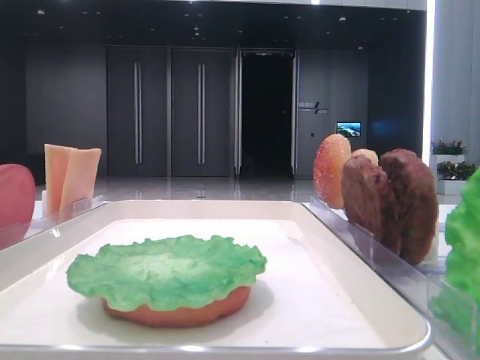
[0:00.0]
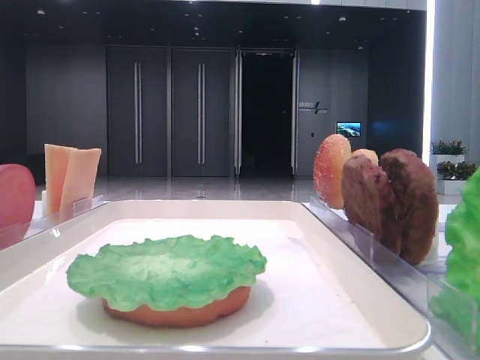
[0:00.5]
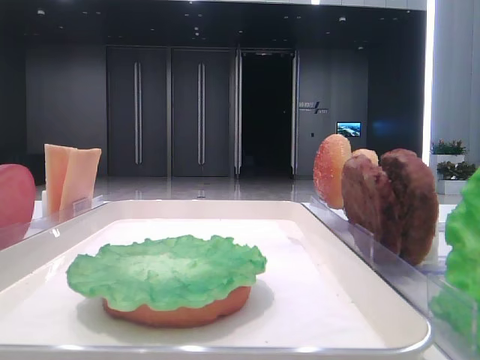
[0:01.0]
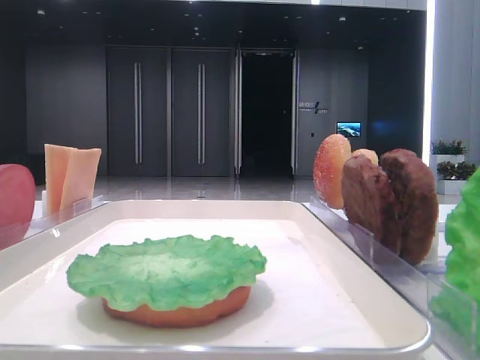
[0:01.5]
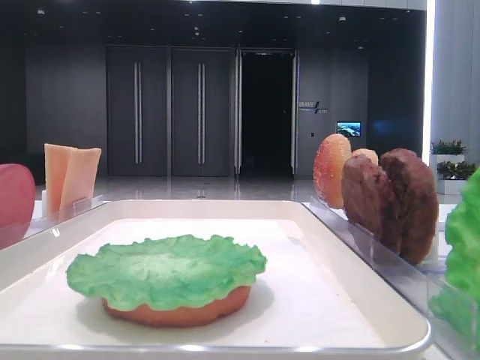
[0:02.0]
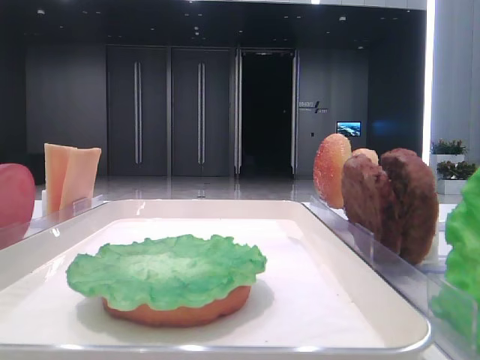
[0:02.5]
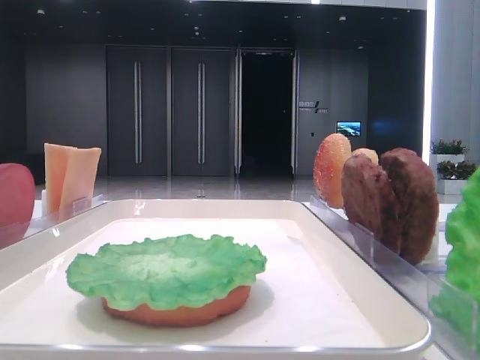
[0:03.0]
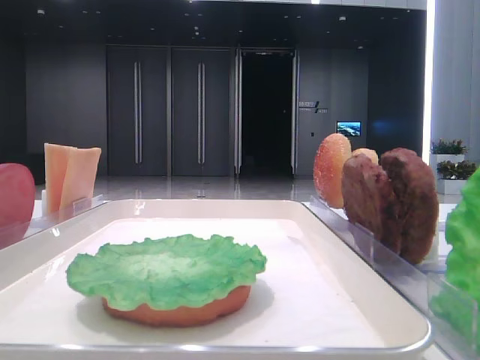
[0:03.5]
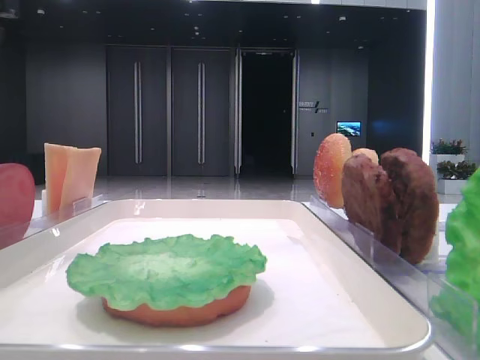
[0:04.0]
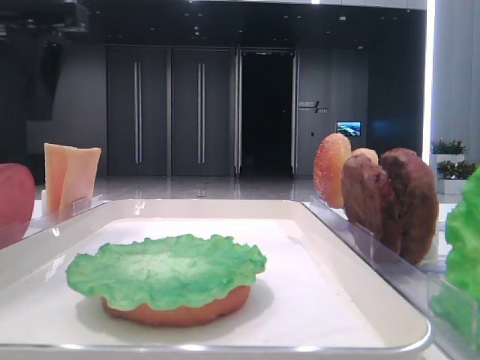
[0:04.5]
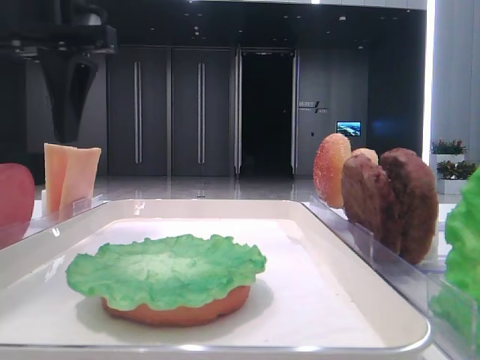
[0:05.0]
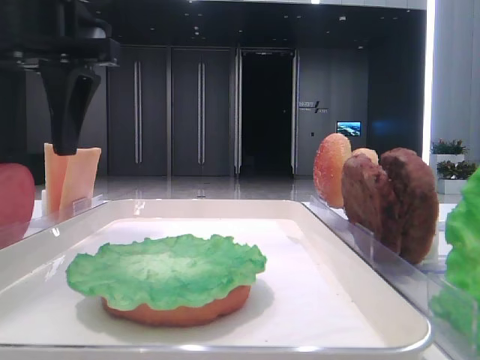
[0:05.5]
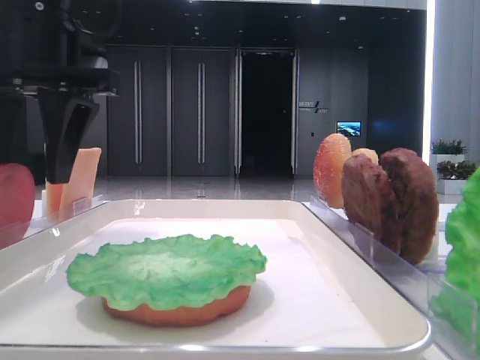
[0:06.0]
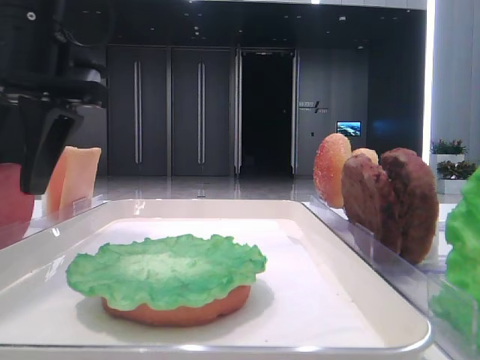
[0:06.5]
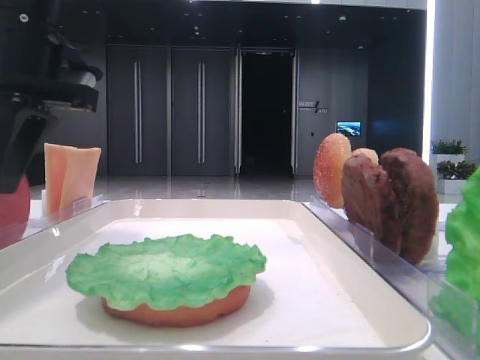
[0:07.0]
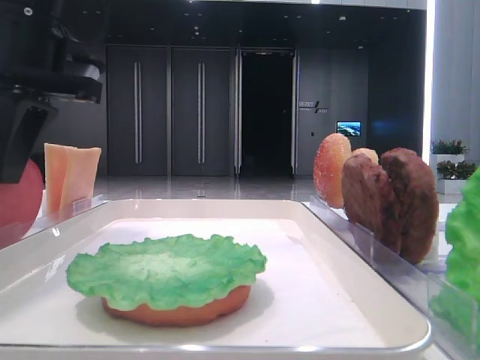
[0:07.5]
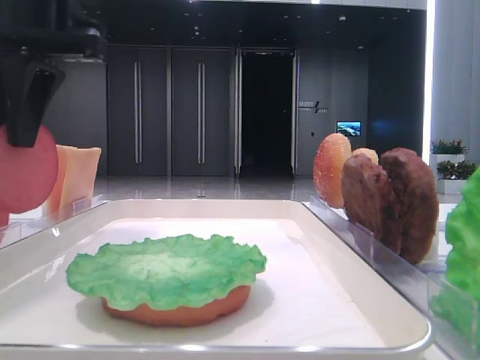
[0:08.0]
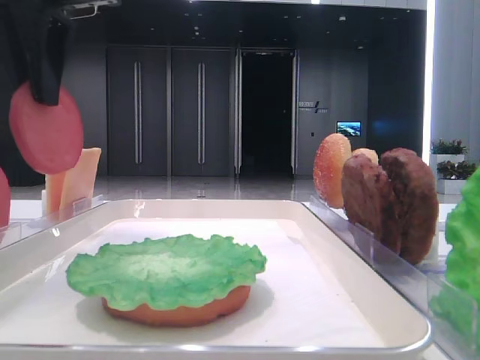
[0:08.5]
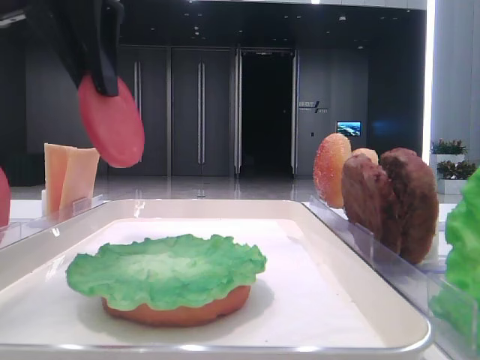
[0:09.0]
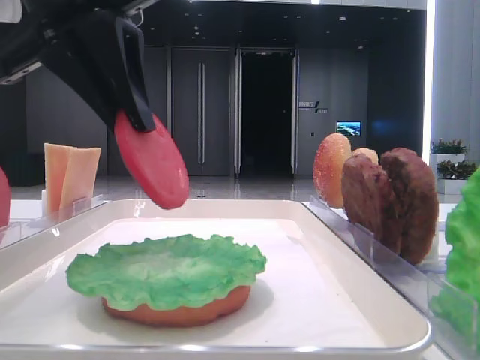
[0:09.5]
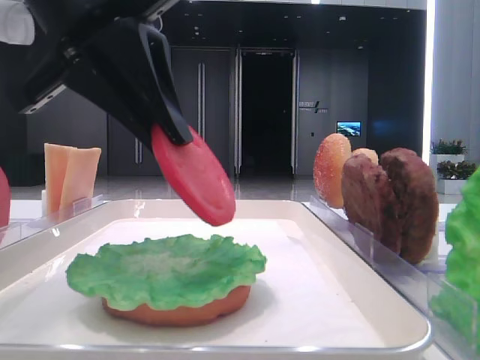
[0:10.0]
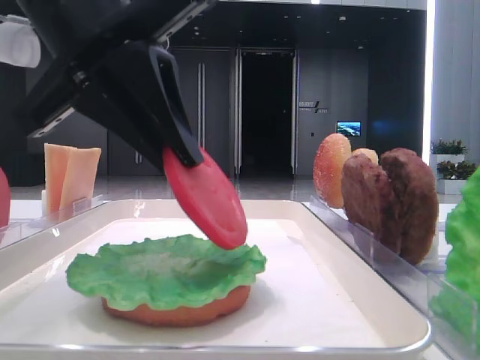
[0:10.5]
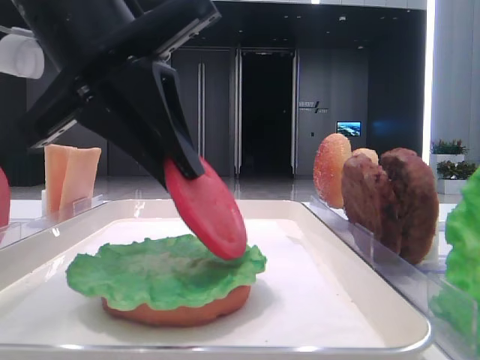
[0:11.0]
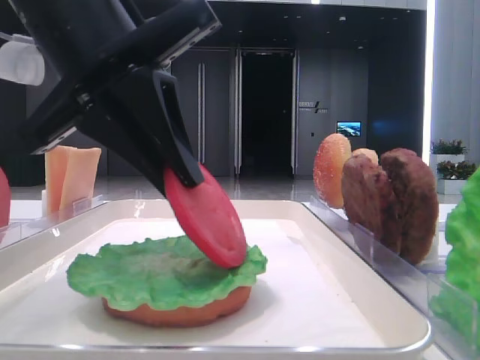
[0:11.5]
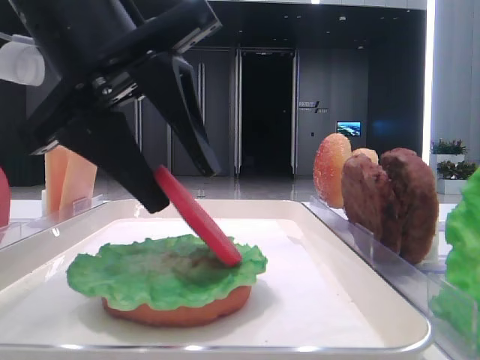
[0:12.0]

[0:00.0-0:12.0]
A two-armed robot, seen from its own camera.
Step, 0:00.0 to 0:07.0: Pick up the tomato slice with the left hand.
0:04.0 to 0:06.0: The left gripper goes about 10 cm to the right and downward.
0:06.0 to 0:08.0: The left gripper closes.
0:08.0 to 0:10.0: The left gripper is displaced backward and to the right by approximately 10 cm.
0:10.0 to 0:12.0: The left gripper opens up.

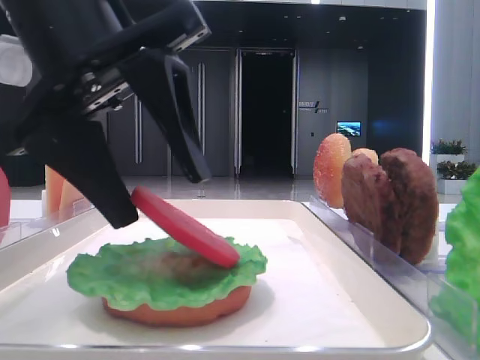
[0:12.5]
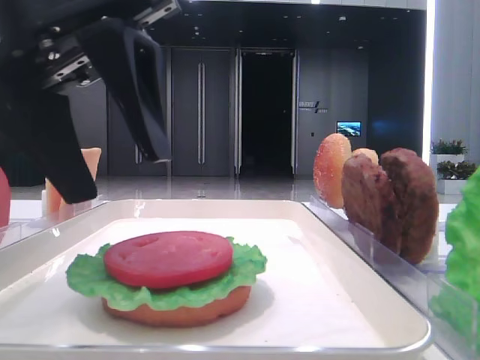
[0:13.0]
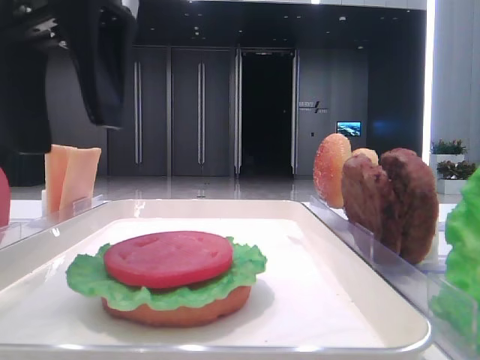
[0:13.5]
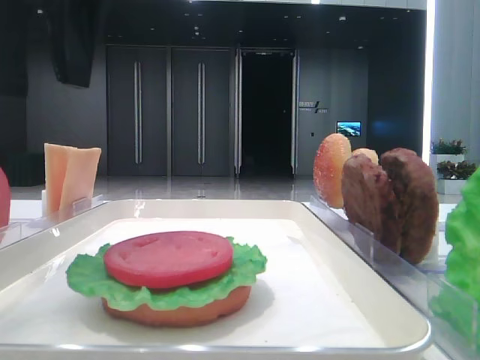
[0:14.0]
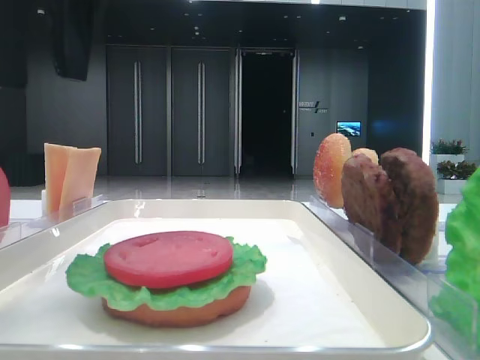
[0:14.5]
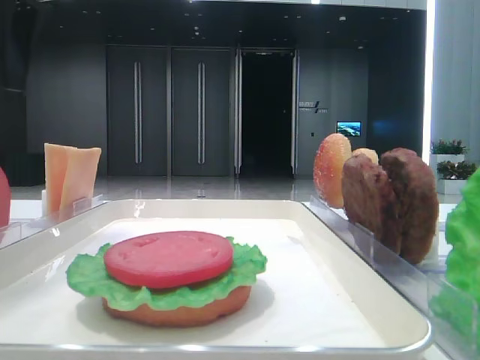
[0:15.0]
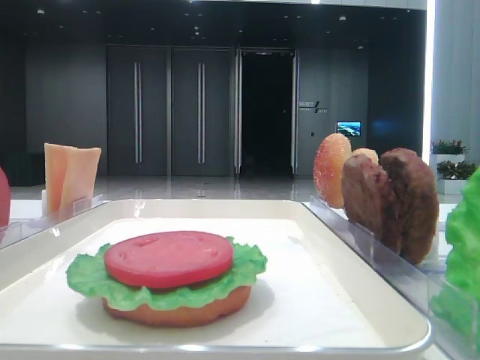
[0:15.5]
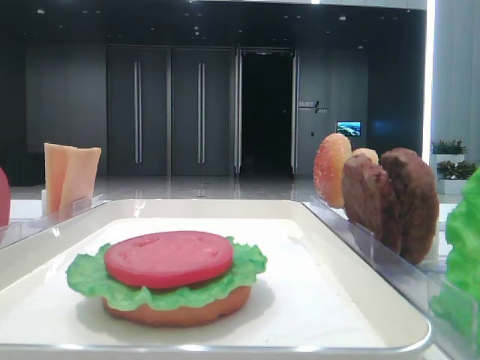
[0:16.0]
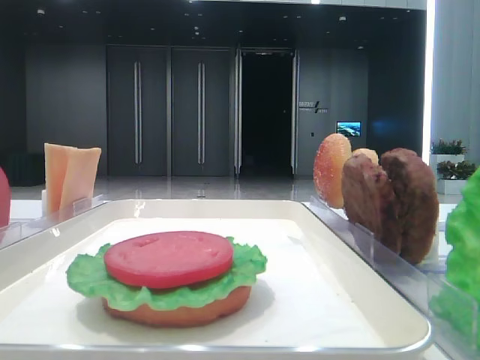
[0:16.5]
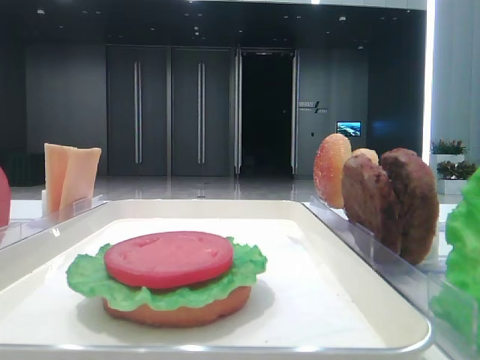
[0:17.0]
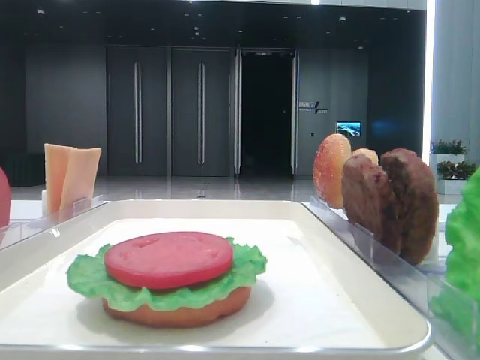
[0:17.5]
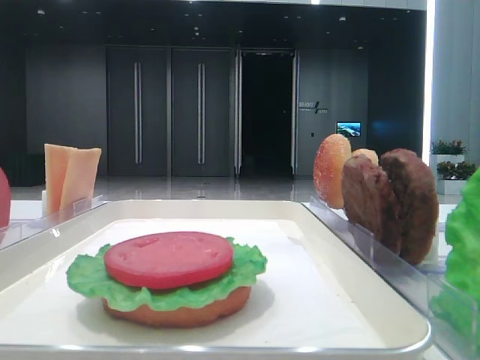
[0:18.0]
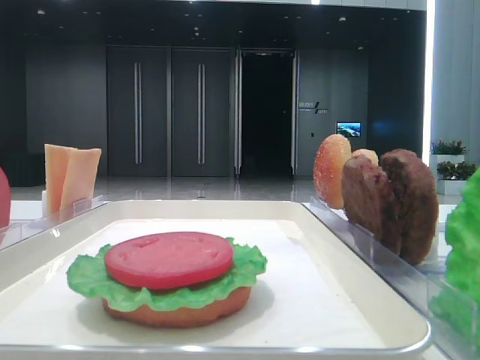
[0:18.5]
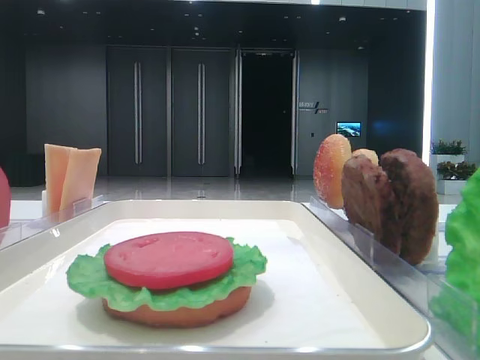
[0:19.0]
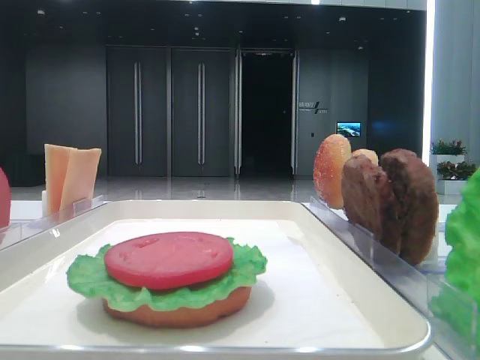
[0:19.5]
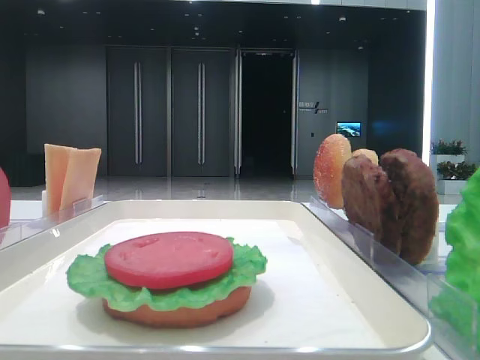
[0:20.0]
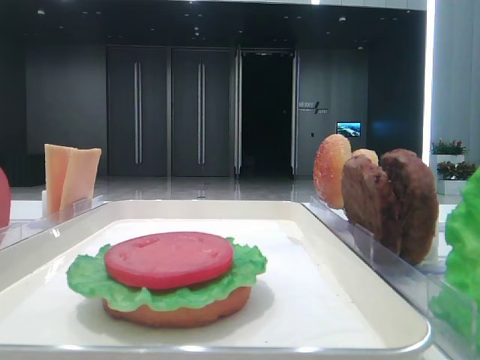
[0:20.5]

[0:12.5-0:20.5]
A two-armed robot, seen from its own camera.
0:12.5 to 0:14.5: The left gripper goes some 10 cm upward.
0:14.5 to 0:16.5: The left gripper heads to the left, covering approximately 15 cm.
0:16.5 to 0:18.5: The left gripper shifts some 30 cm backward.

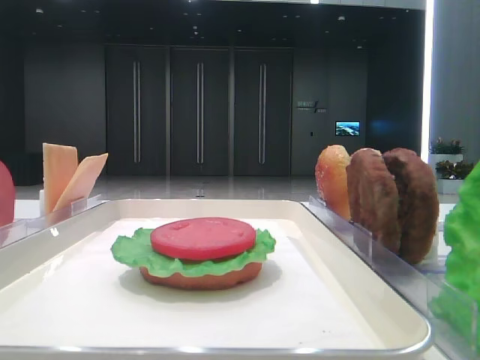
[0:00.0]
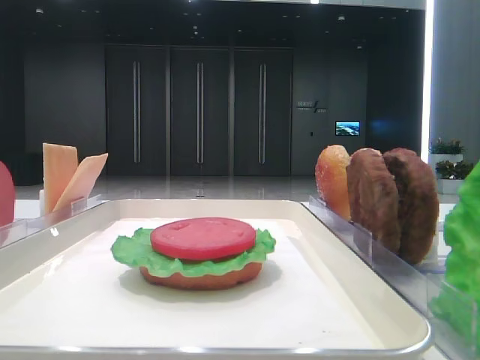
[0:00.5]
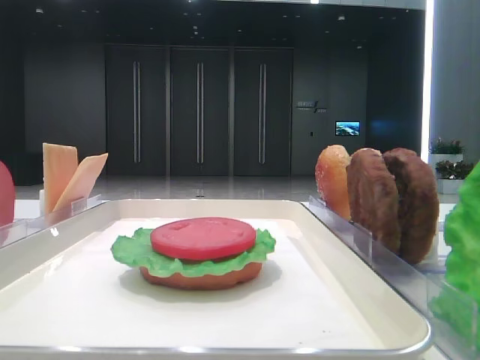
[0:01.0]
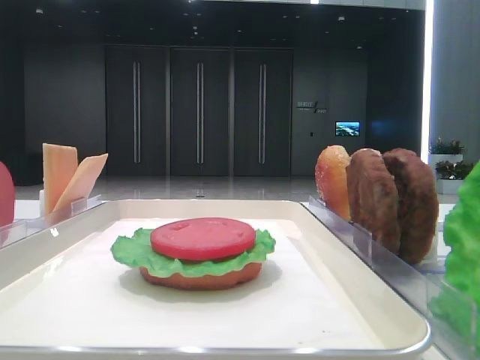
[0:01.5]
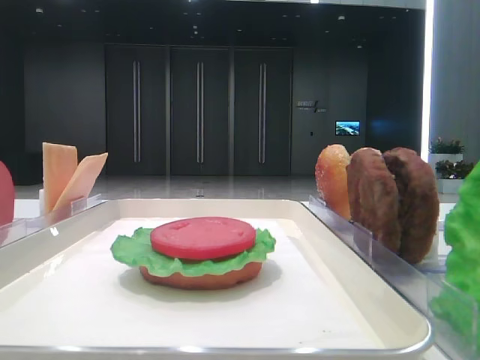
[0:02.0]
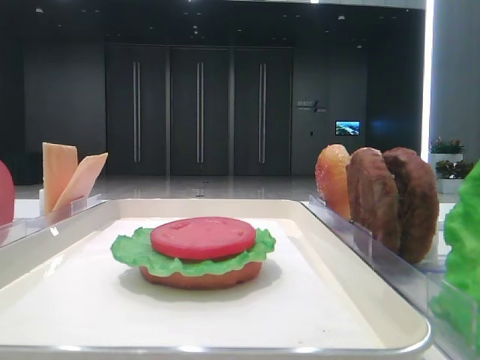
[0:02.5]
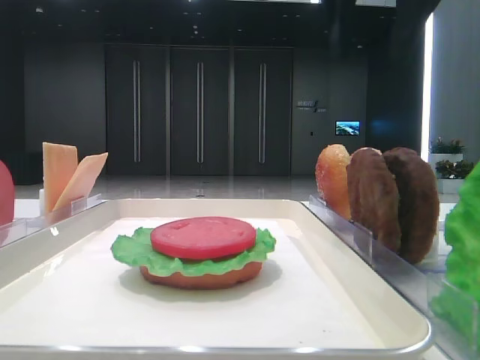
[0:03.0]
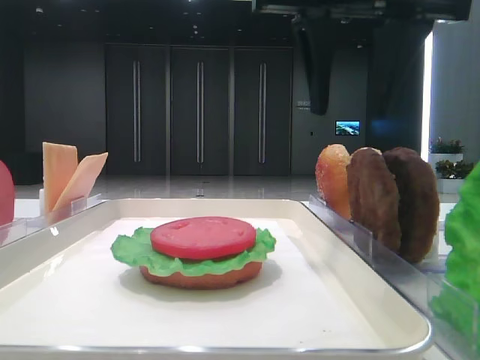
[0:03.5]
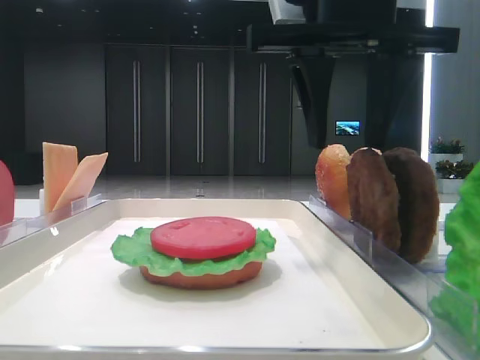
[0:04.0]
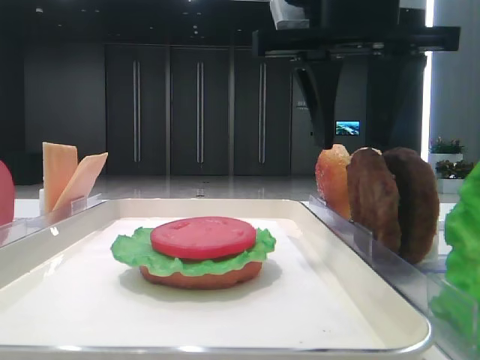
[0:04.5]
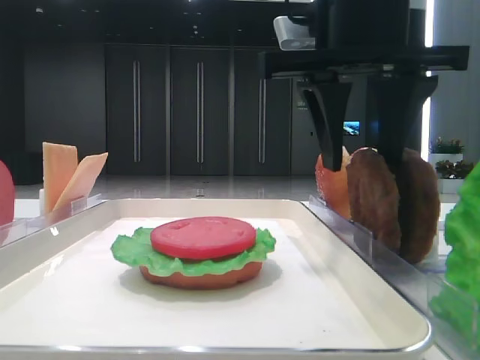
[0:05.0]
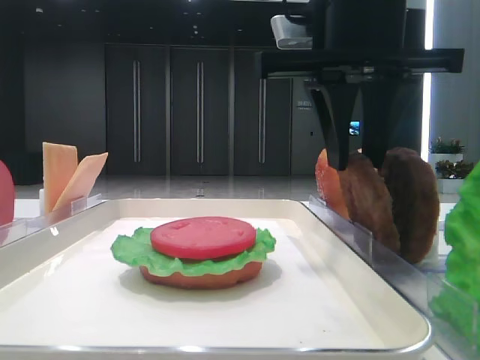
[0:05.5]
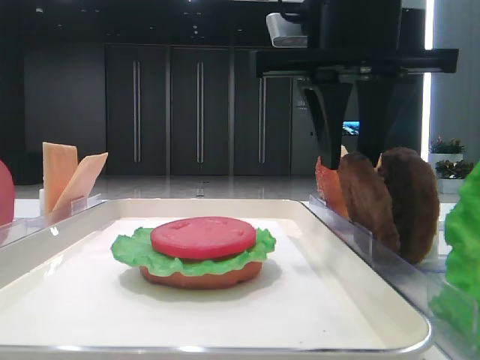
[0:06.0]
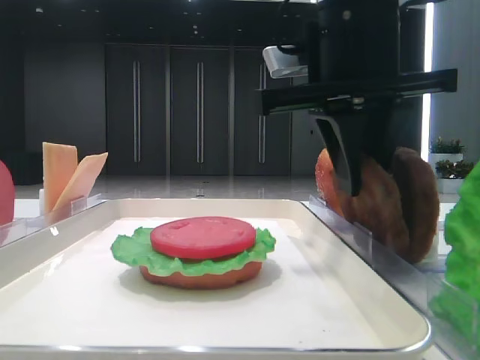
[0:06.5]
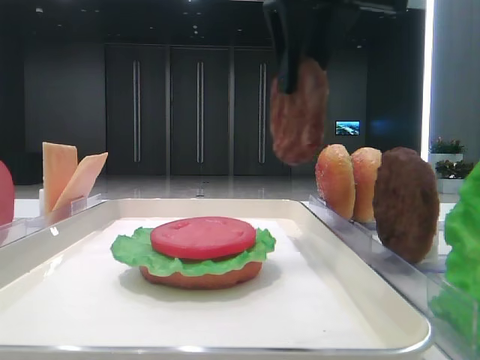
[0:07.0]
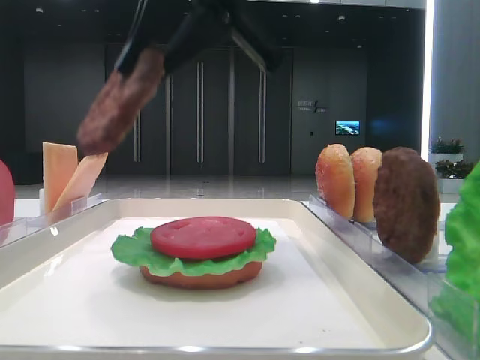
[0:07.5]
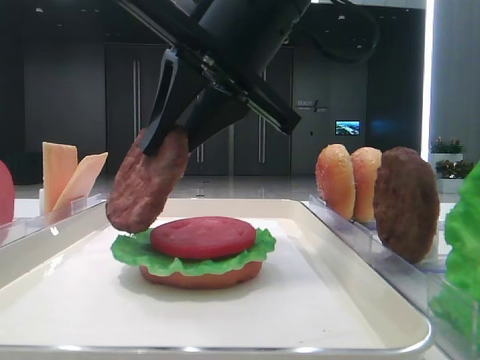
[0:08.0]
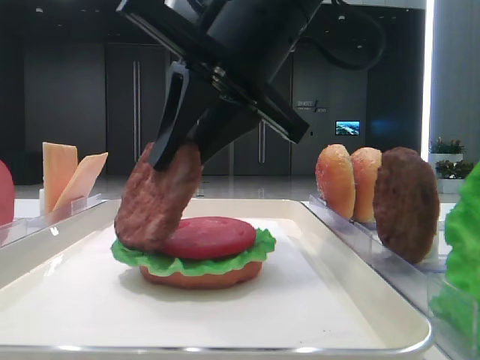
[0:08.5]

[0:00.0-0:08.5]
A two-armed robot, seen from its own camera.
Step, 0:00.0 to 0:06.0: Grab the patty with the right hand.
0:02.0 to 0:04.0: The right gripper moves to the left and forward, about 25 cm.
0:04.0 to 0:06.5: The right gripper closes up.
0:06.5 to 0:08.5: The right gripper heads to the left, covering roughly 5 cm, and moves approximately 10 cm upward and comes back.
